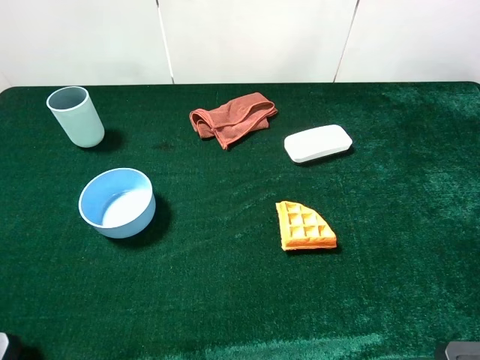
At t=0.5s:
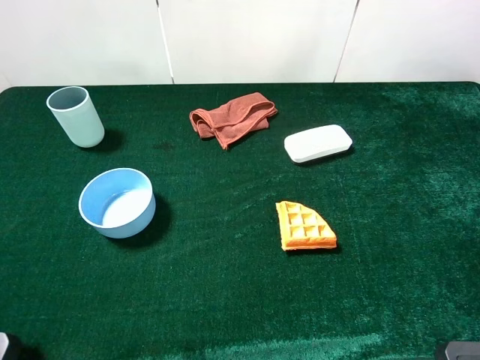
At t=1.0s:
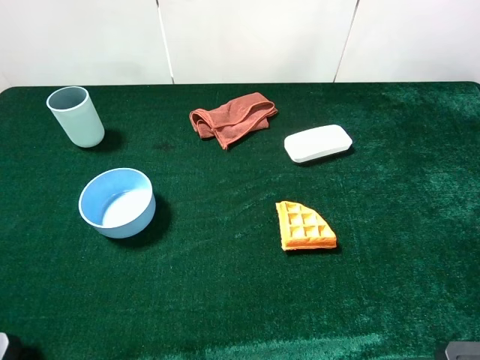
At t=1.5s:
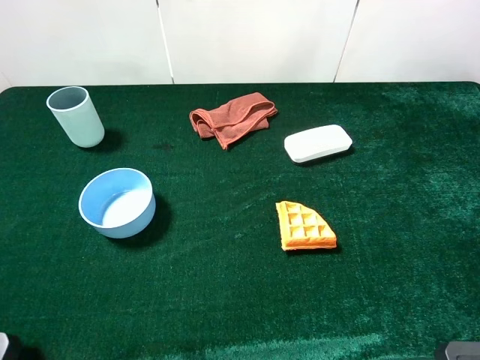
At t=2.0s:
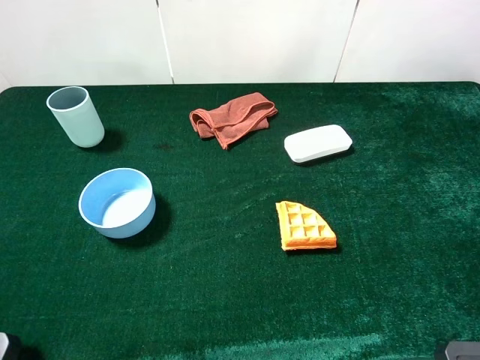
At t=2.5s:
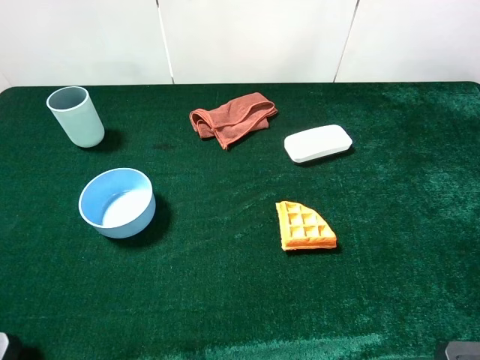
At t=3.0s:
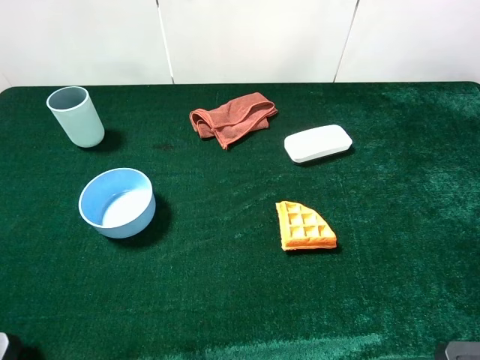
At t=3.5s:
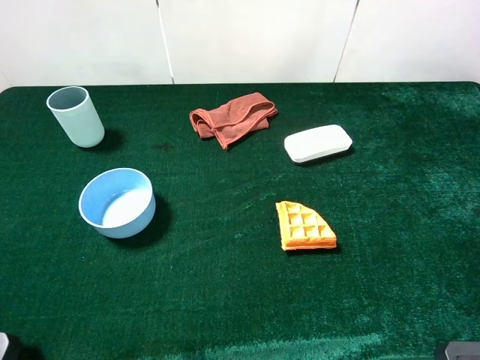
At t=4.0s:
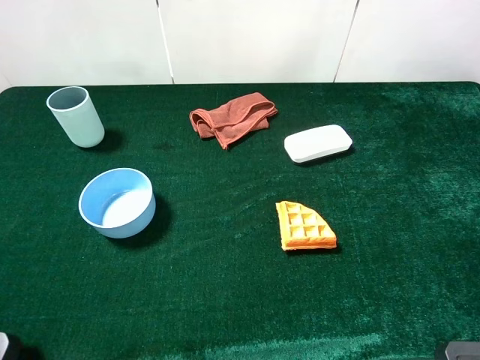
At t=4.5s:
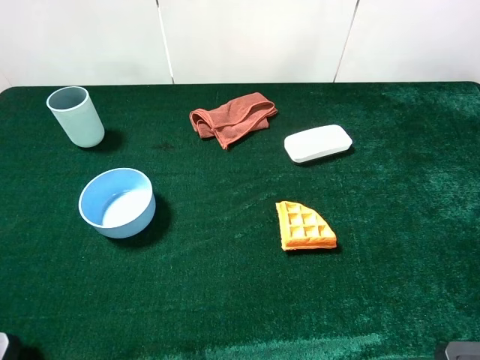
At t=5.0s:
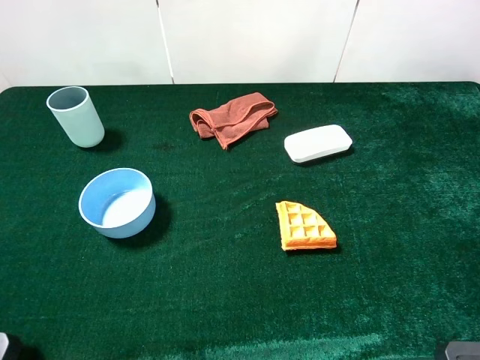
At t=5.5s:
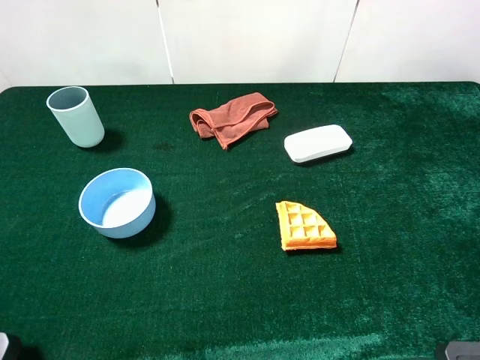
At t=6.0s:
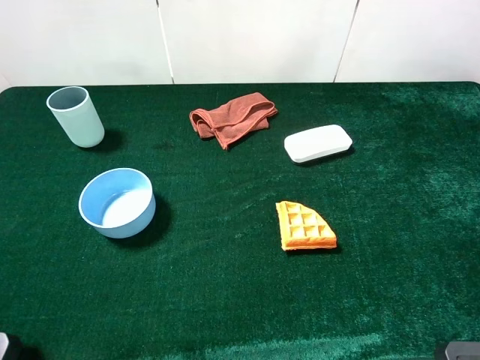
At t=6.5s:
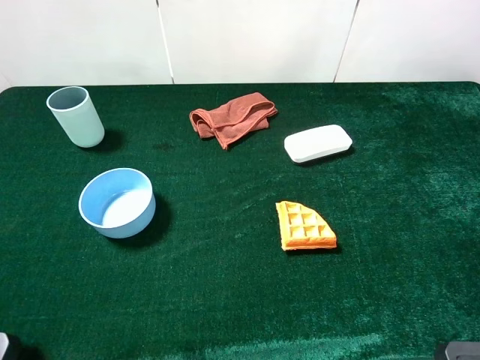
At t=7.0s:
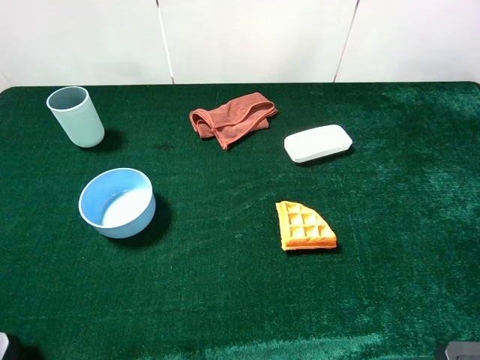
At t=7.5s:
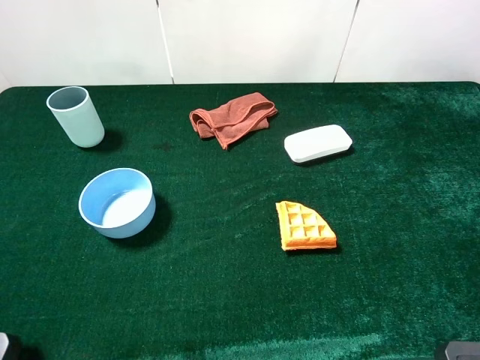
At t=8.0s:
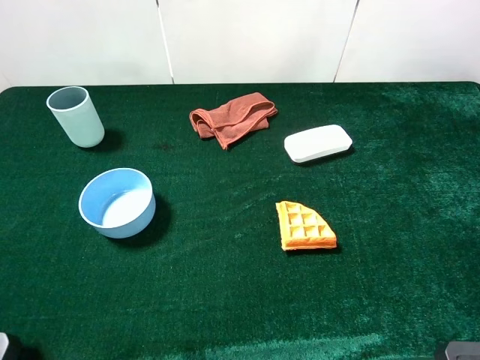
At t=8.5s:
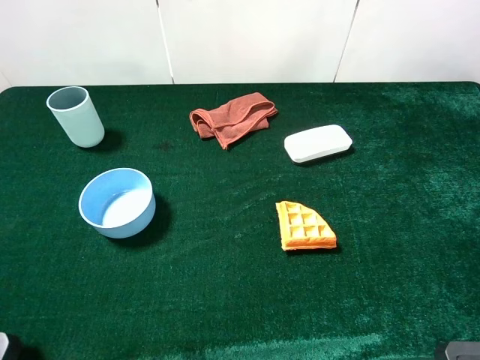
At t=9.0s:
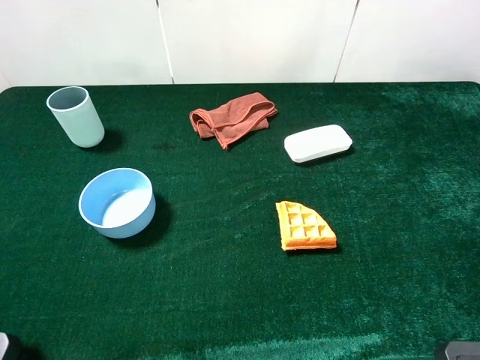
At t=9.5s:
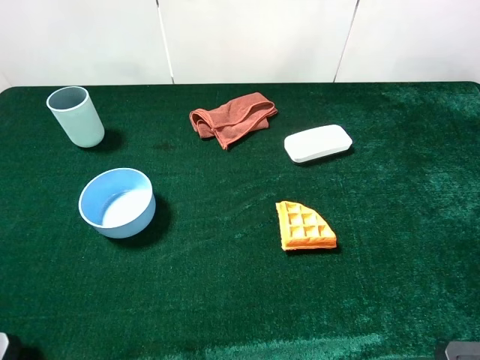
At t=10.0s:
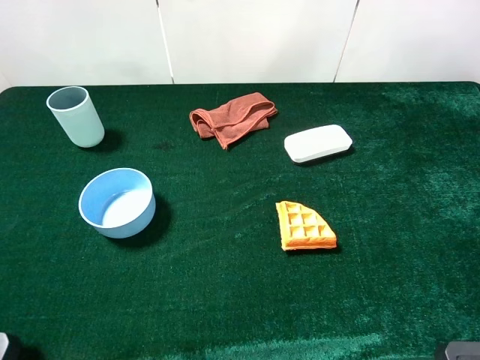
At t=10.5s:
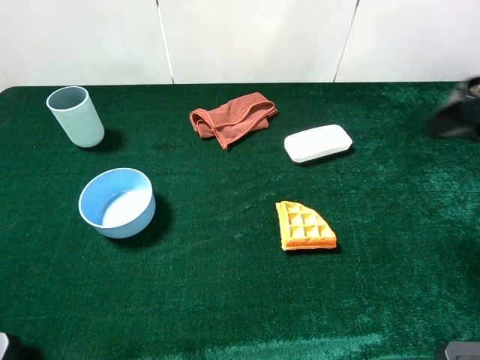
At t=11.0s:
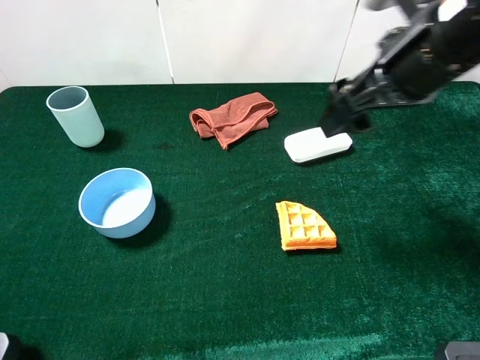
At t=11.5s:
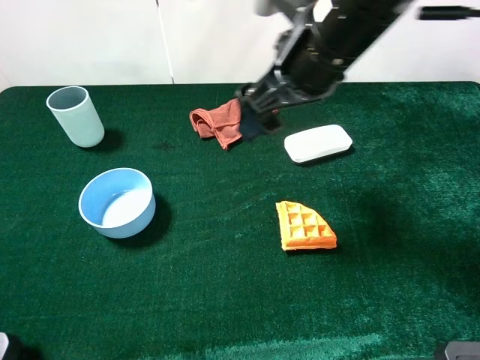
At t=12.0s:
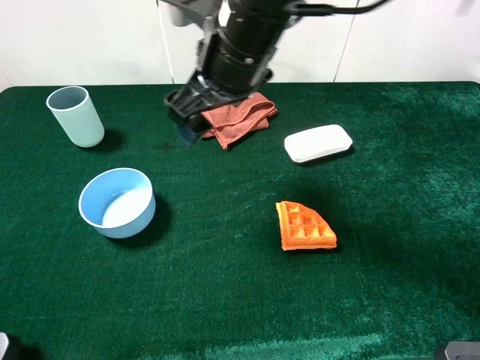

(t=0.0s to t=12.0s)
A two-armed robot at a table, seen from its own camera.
Task of the whole recording: the gripper move the object.
t=0.0s - t=8.0s: Neither gripper changes place.
t=10.0s - t=12.0s: The right gripper shifts about 35 cm to the left and forward.

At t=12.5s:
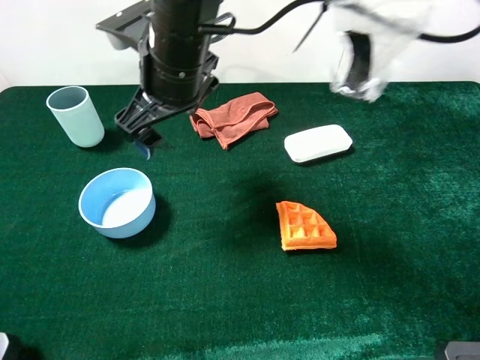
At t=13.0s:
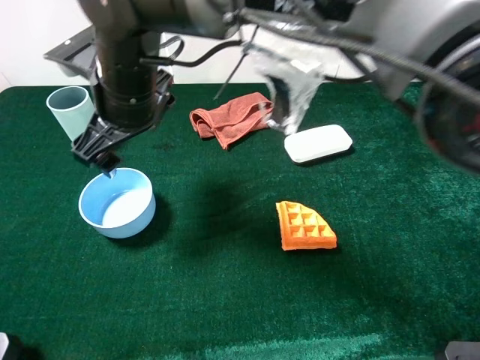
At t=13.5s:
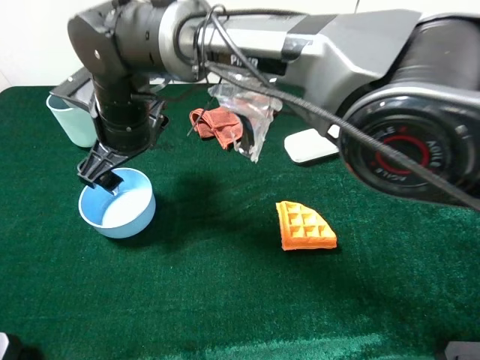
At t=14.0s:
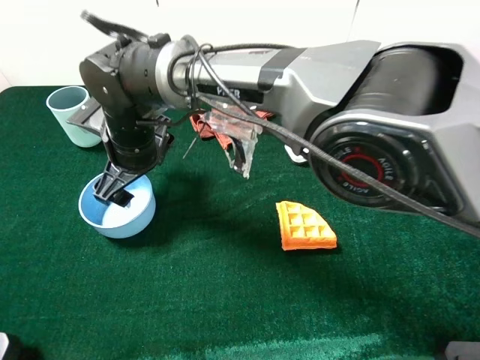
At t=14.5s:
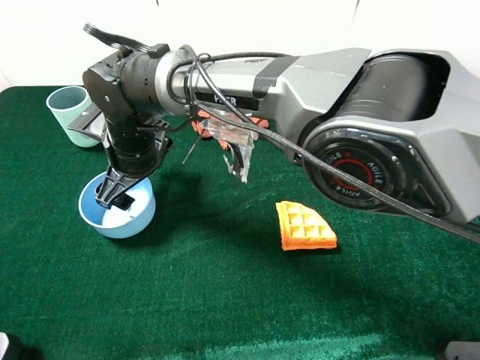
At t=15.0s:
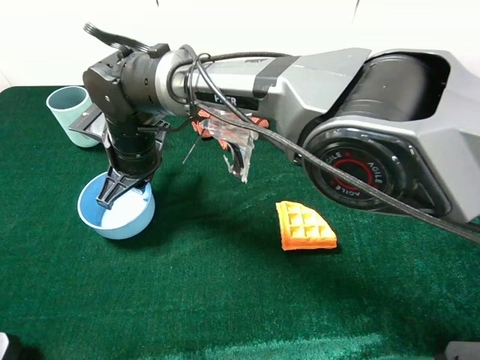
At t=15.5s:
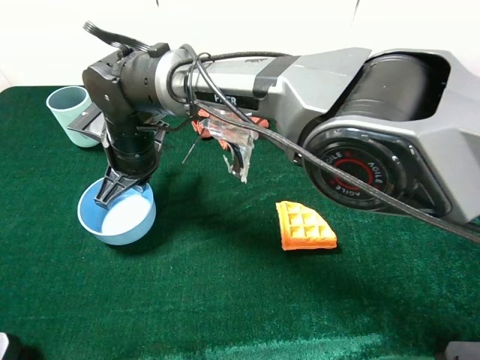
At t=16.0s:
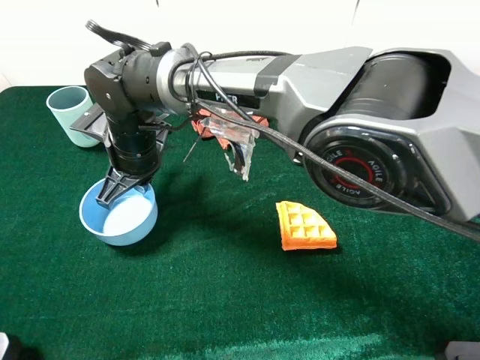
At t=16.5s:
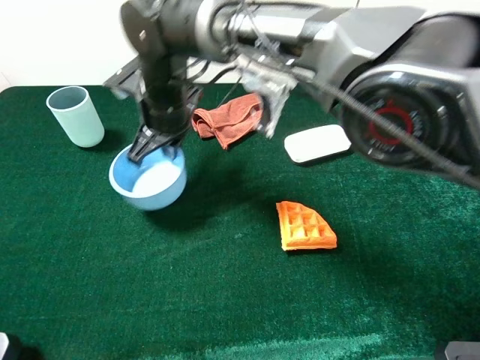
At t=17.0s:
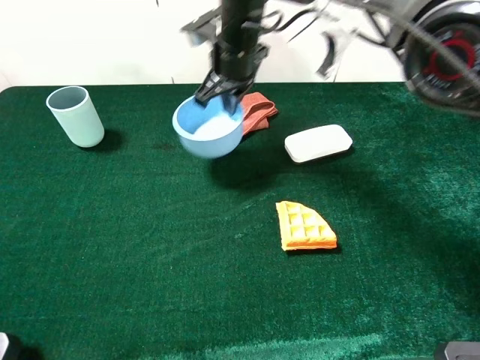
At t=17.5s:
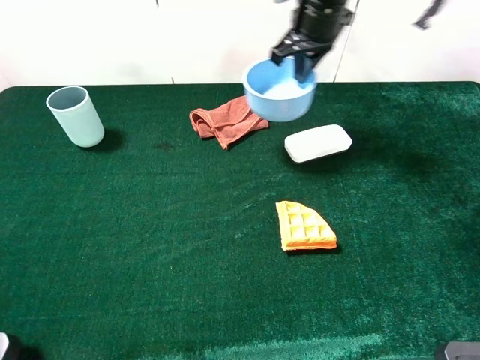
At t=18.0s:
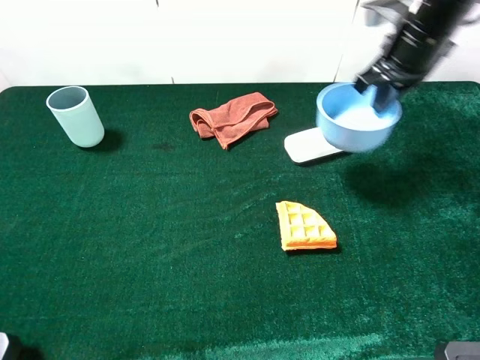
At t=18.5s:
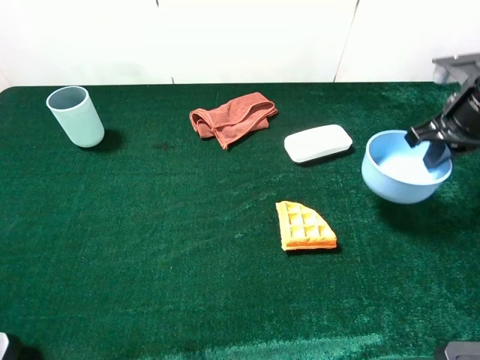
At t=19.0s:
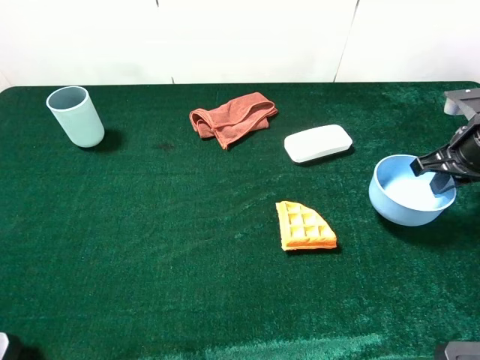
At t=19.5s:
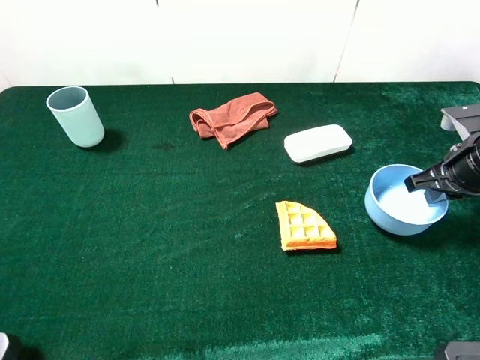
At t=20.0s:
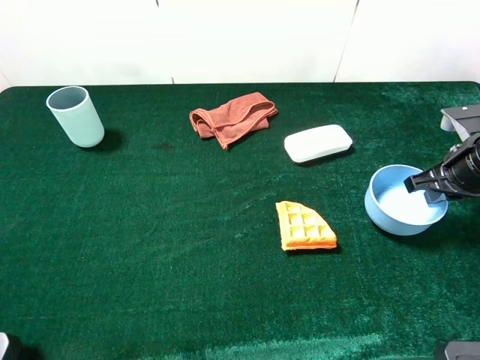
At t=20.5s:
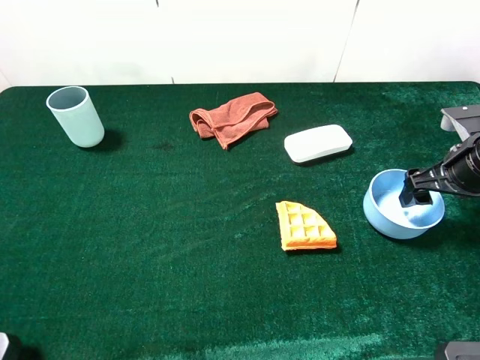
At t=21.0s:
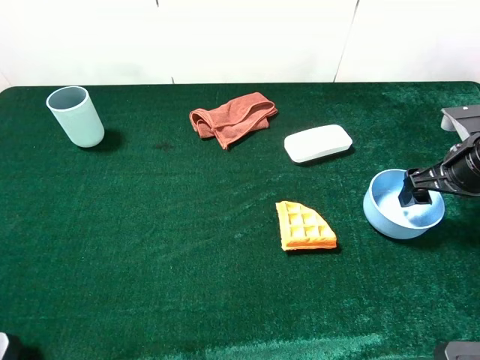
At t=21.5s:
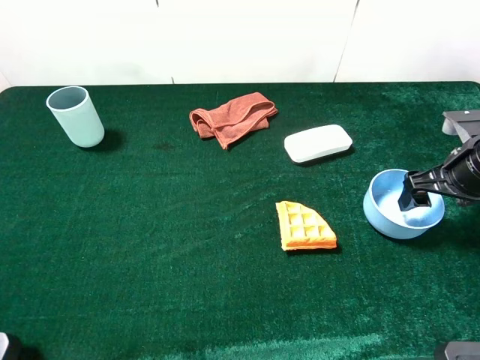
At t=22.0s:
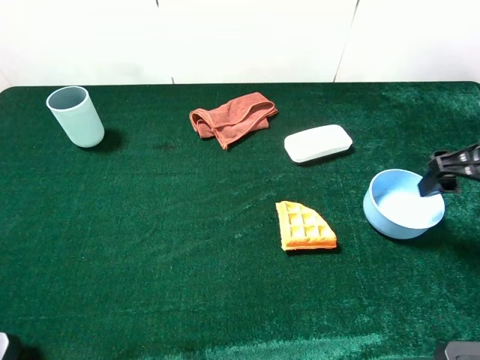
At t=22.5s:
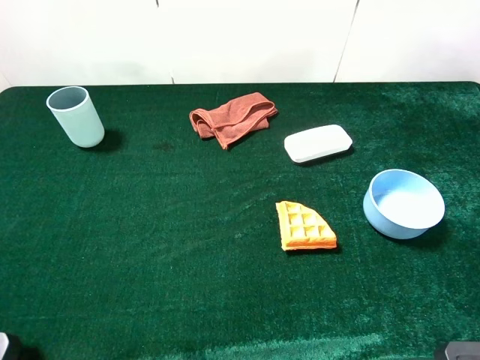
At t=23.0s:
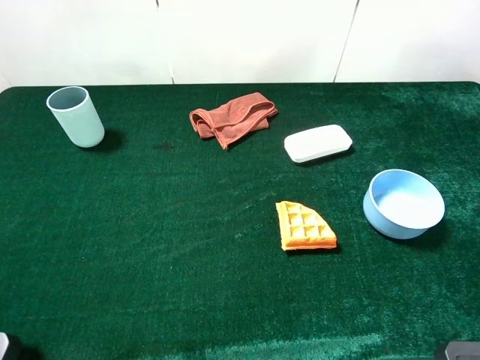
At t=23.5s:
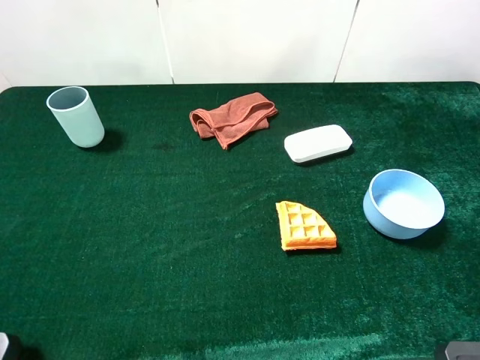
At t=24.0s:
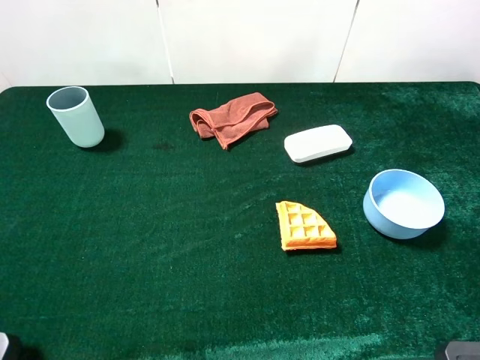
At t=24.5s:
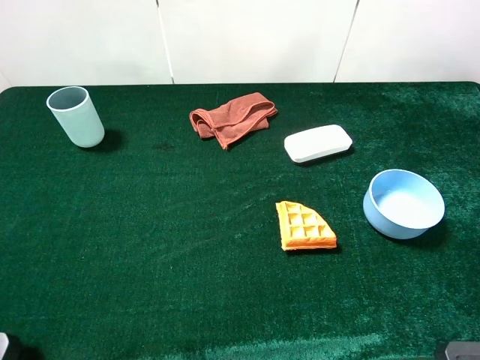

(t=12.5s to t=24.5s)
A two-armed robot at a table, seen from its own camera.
Task of the whole recording: the gripper move the object.
Step, t=12.5s - t=15.0s: Grasp the blue bowl with the right gripper.
Step, t=15.5s - t=21.5s: Place the blue bowl on the table with the right gripper.
t=12.5s - t=14.5s: The right gripper moves downward and to the left, some 15 cm.
t=14.5s - t=16.5s: The right gripper is displaced forward and to the right by approximately 5 cm, and closes its fingers.
t=16.5s - t=18.5s: The right gripper moves to the right, roughly 40 cm.
t=18.5s - t=20.5s: The right gripper travels downward by approximately 5 cm, and opens up.
t=20.5s - t=22.5s: The right gripper travels upward and backward by some 20 cm.

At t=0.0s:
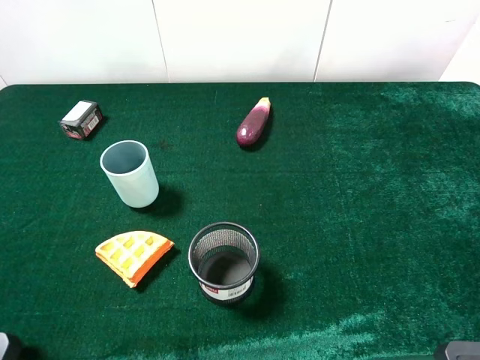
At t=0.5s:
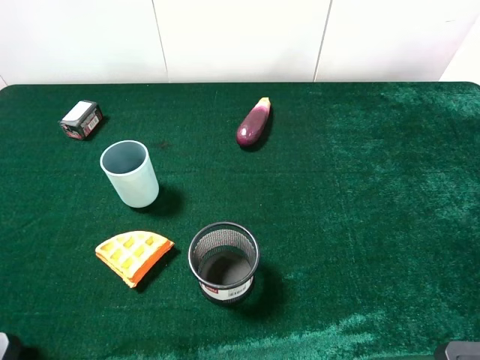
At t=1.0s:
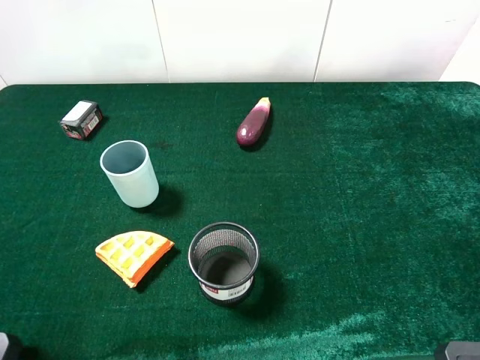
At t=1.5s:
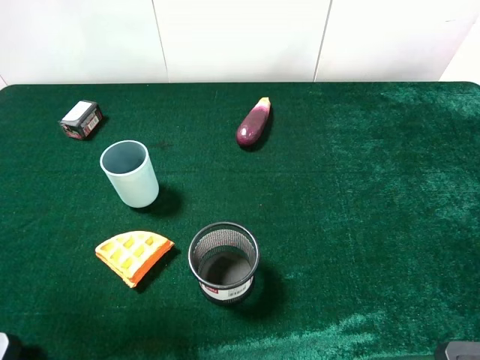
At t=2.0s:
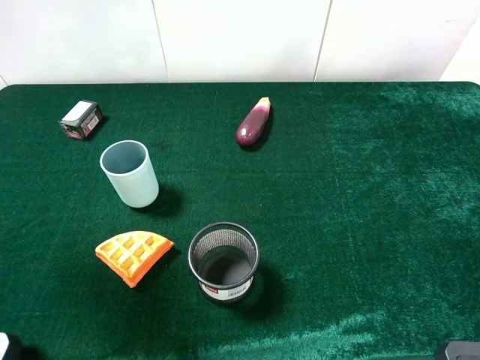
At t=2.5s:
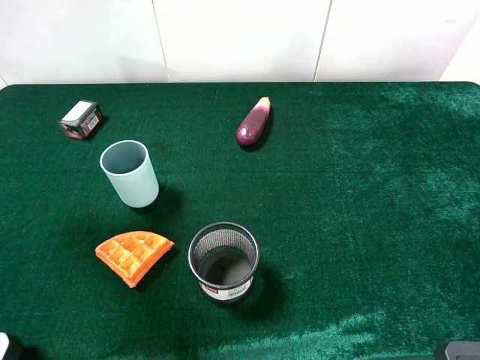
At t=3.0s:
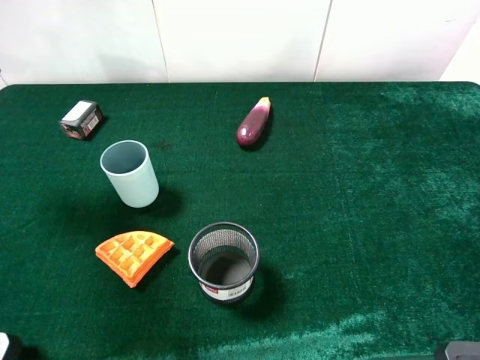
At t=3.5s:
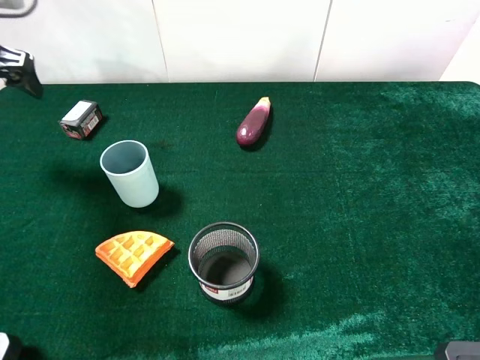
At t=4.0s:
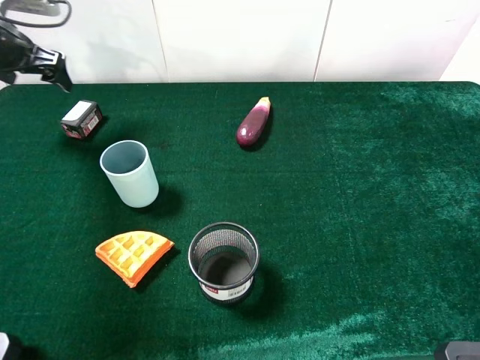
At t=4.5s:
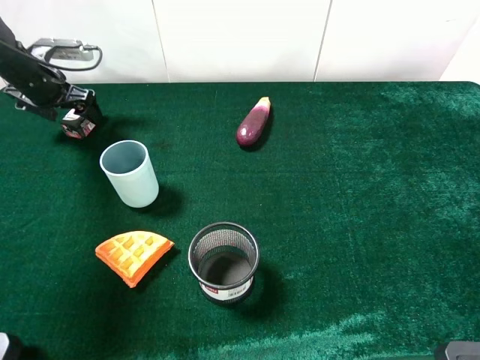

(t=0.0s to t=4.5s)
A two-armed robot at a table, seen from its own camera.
Task of the whole recording: the gripper move the object.
t=0.0s - t=2.0s: The left gripper shifts approximately 20 cm forward and upward.
t=2.0s - t=4.5s: The left gripper goes roughly 35 cm forward and downward.
